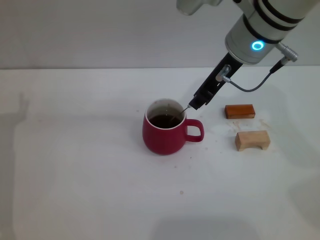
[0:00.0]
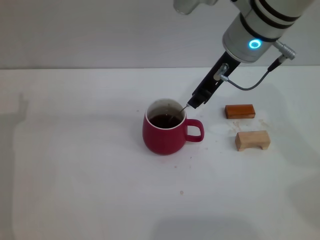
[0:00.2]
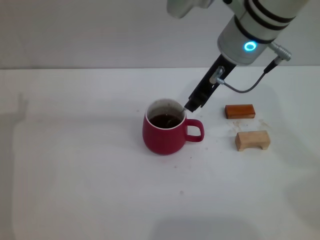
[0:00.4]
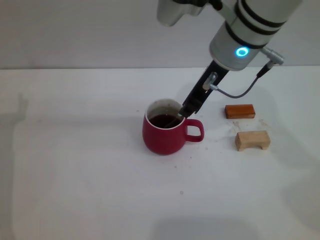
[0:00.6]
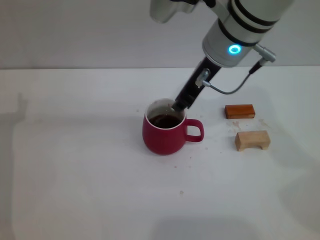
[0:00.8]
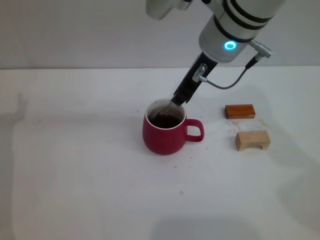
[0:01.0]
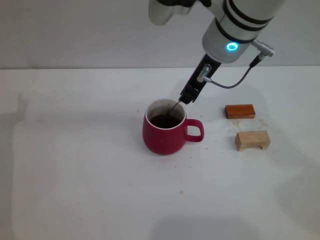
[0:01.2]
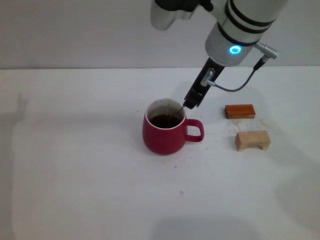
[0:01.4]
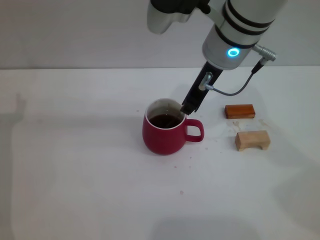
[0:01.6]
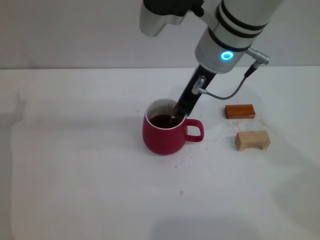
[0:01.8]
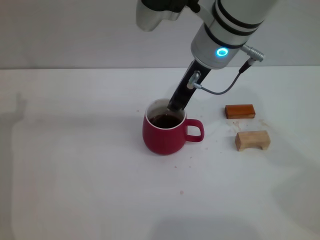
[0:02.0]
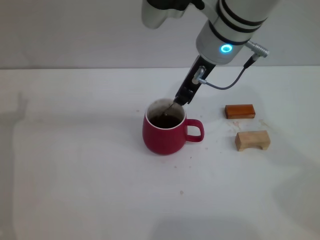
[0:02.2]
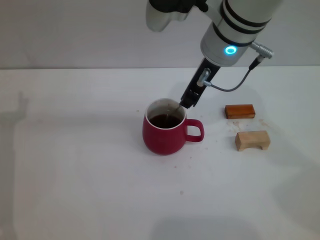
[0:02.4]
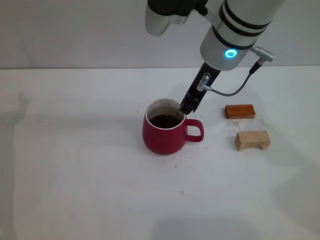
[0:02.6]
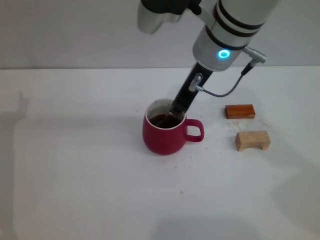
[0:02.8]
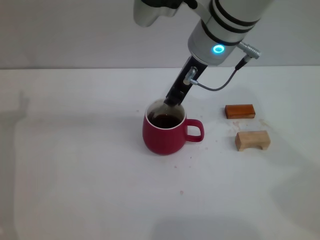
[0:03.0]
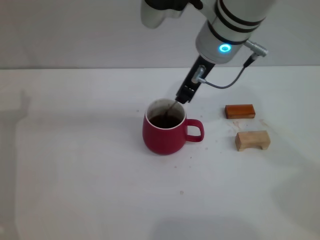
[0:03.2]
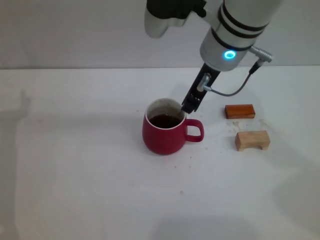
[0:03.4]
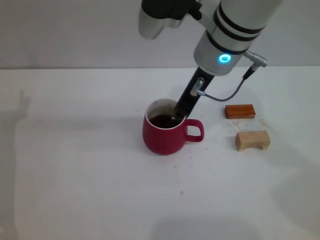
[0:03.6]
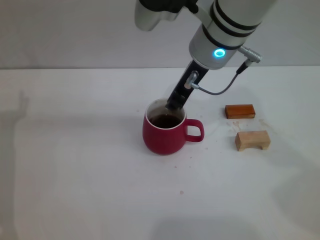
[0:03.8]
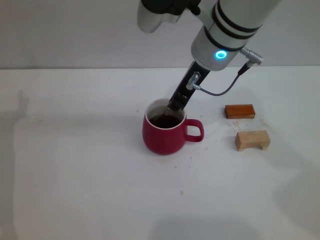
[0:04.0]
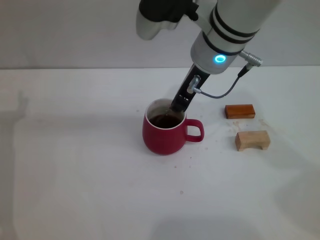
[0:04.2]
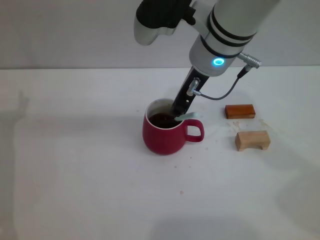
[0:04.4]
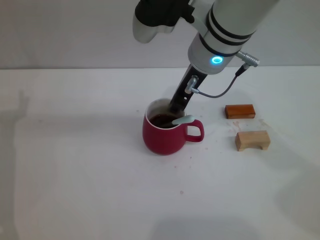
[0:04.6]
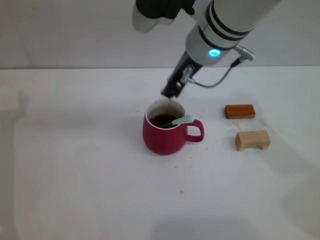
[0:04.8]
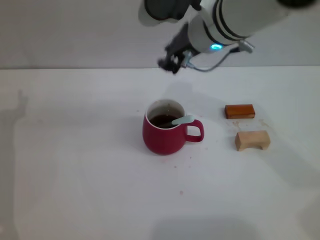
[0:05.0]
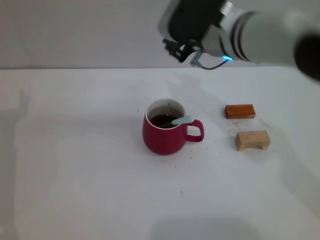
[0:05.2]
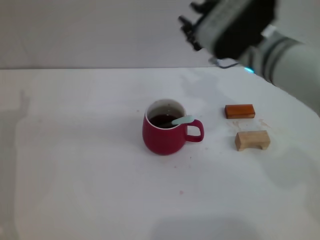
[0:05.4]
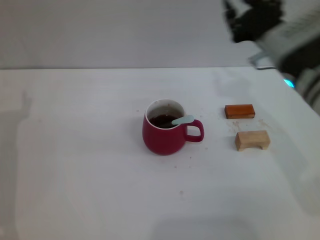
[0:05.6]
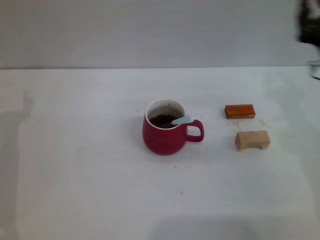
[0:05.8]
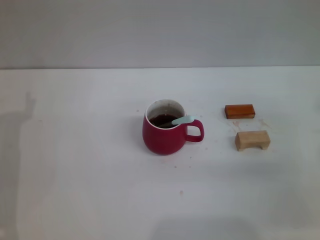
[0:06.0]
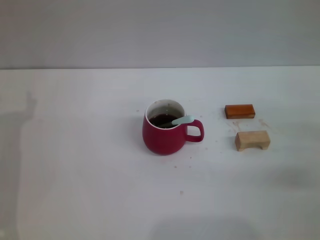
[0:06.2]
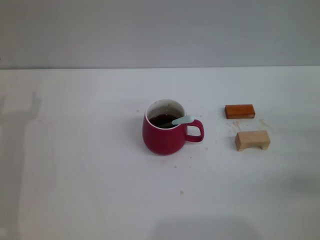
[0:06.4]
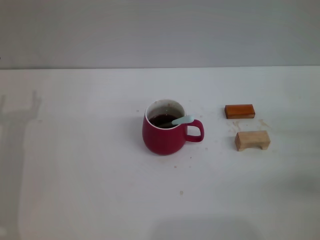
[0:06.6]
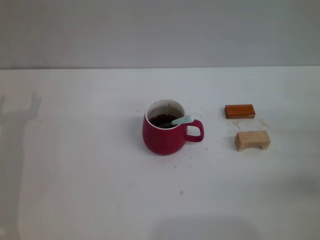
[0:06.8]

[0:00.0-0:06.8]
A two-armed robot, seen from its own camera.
Task of the whole recording: Move the red cup to the center, lift the blue spoon, stir it three times in the cup, and put the spoon into the cup.
Step, 0:00.0 to 0:05.0: Stir the coffee in the cup with the right gripper.
0:00.0 to 0:04.0: The grippers stay close to where they were, moving slightly.
0:04.0 to 0:05.4: The right gripper moves to the right and downward, some 10 cm.
0:05.4 to 0:06.8: The right gripper moves to the right, downward and backward, some 25 cm.
